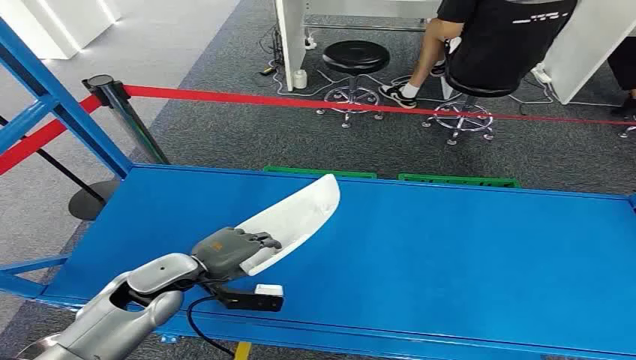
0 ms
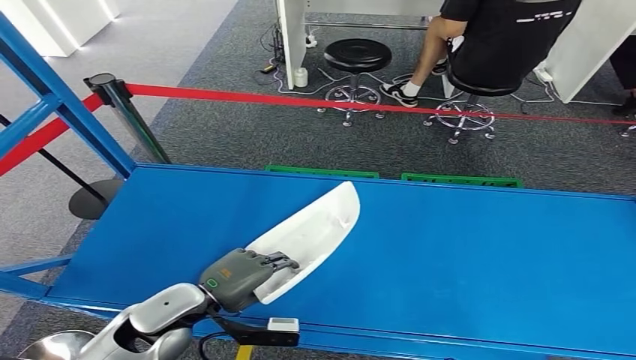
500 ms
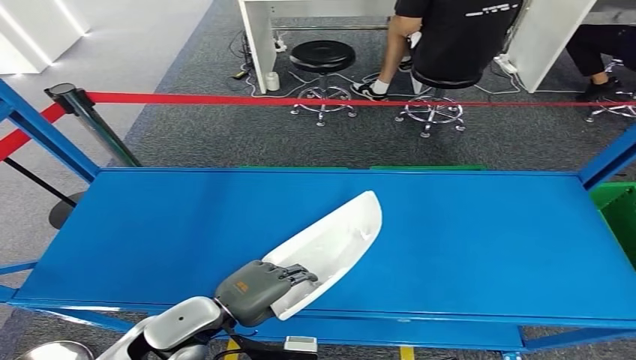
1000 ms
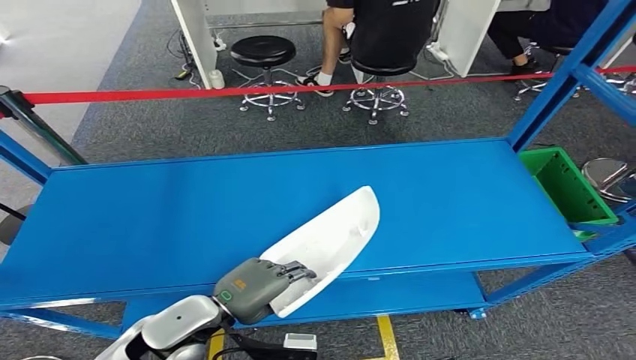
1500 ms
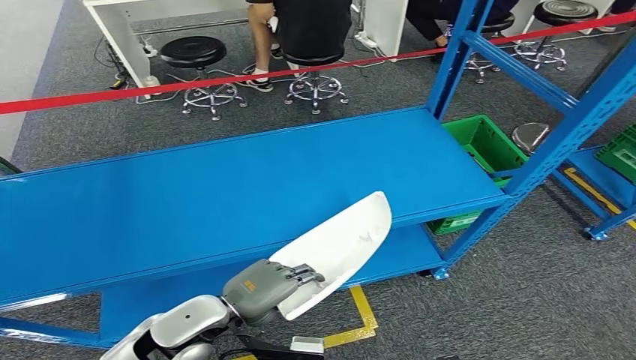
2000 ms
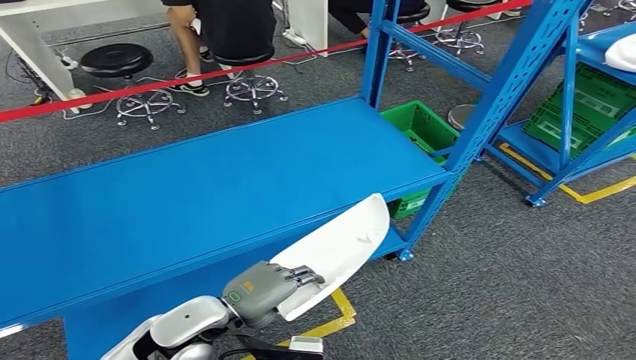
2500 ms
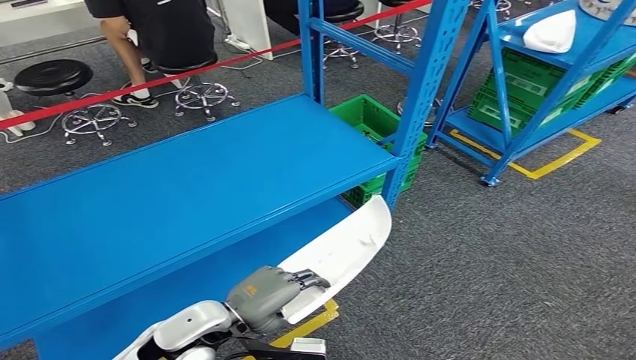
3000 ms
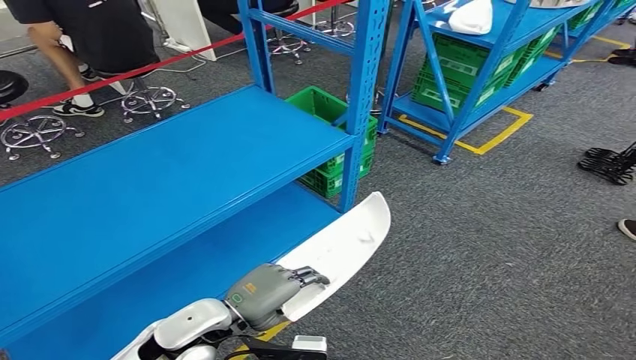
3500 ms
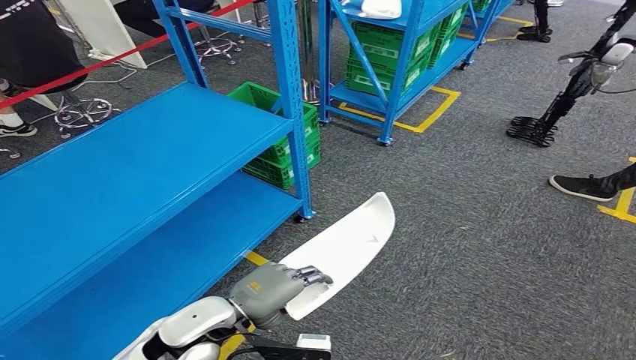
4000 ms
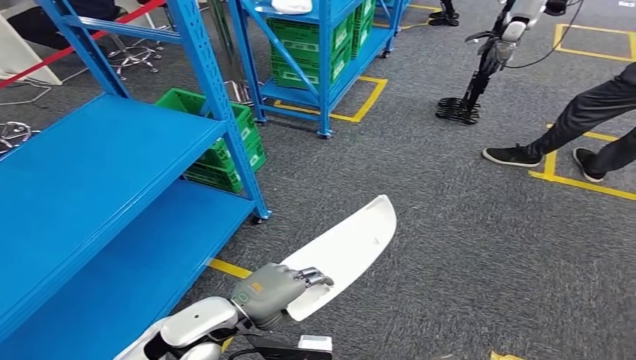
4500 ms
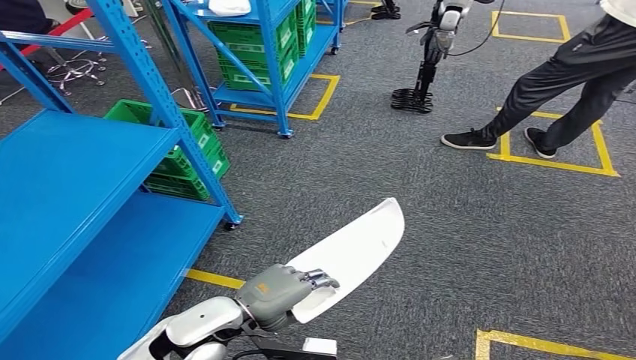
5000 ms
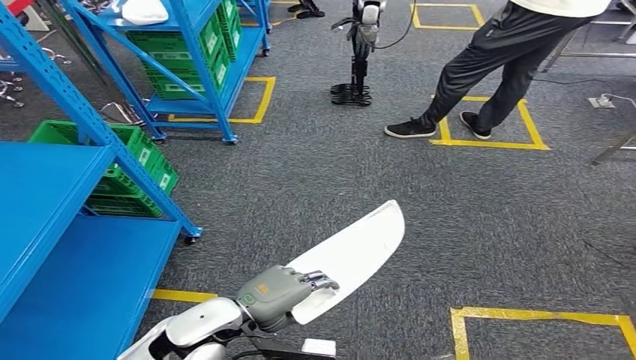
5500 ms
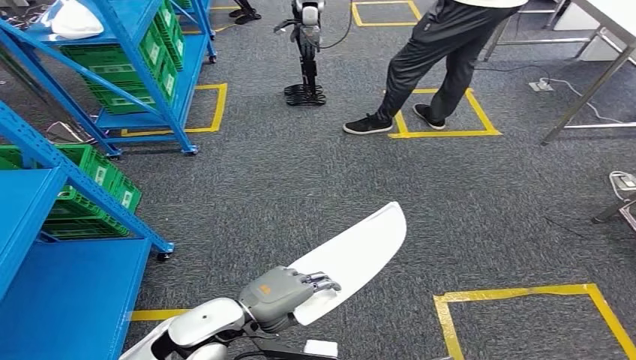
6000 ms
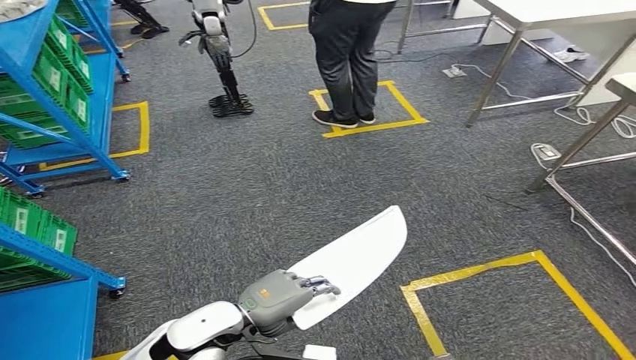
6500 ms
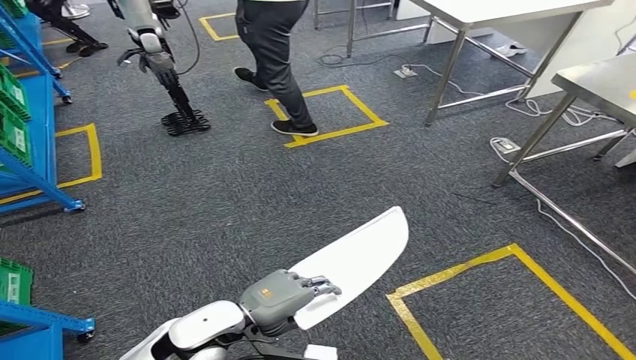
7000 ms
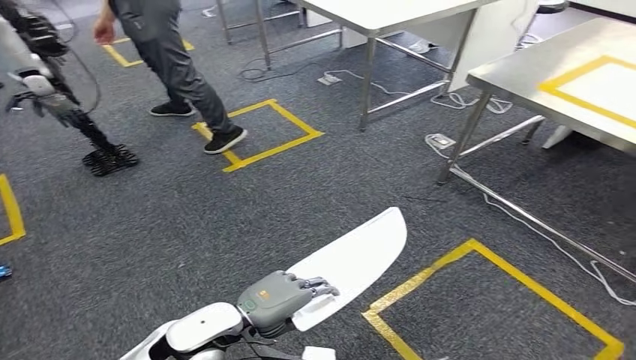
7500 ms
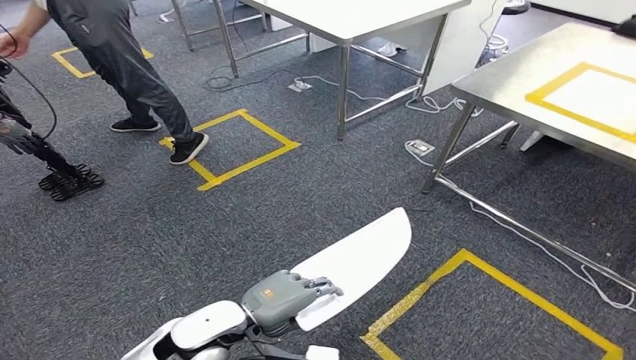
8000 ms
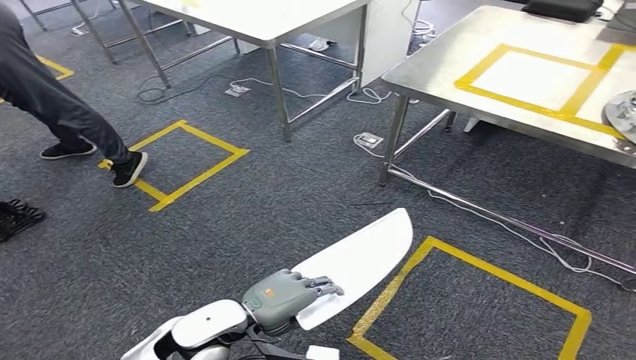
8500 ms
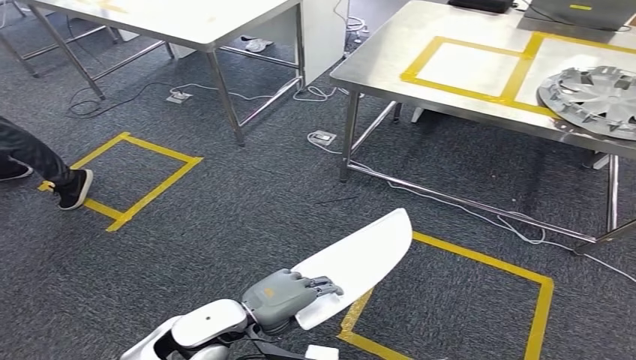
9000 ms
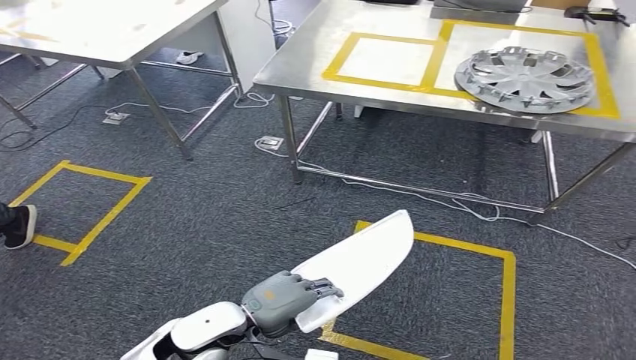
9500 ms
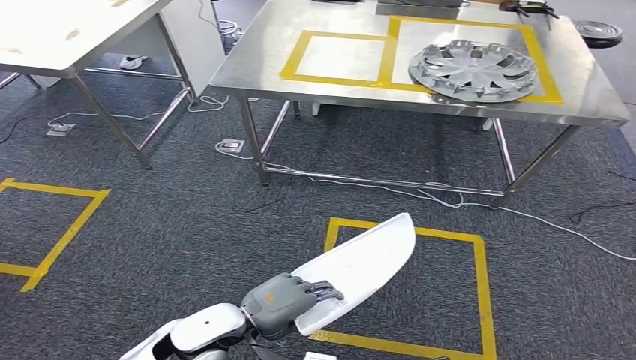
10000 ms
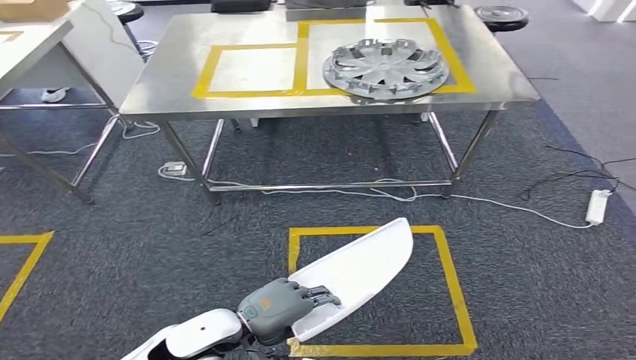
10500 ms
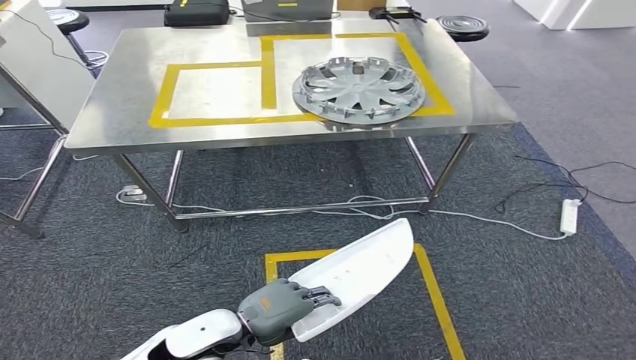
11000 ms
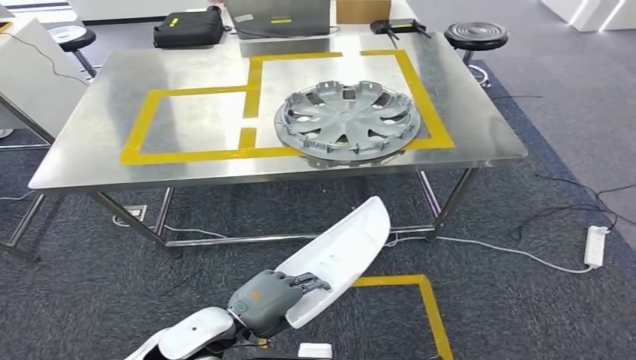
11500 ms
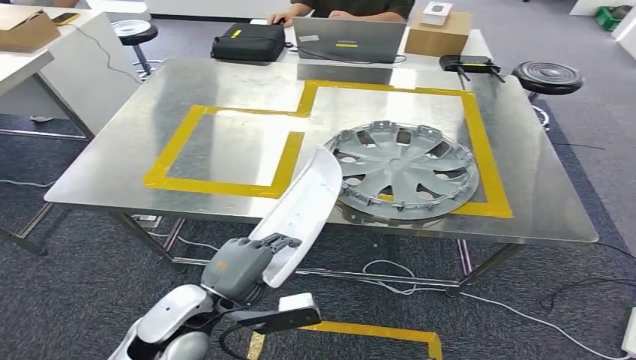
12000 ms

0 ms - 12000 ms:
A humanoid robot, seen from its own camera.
Step, 0 ms - 2000 ms: Pick up the small parts from the shelf.
Step, 2500 ms - 12000 ms: Move the small parts to the workbench.

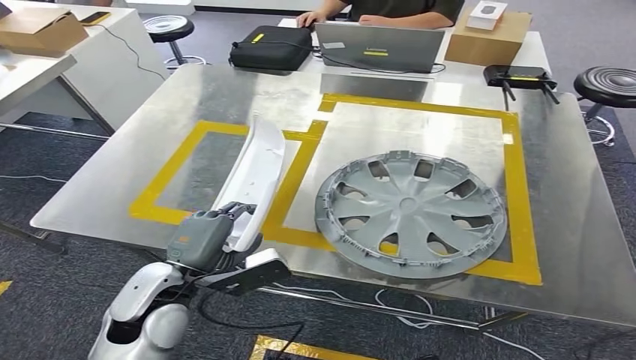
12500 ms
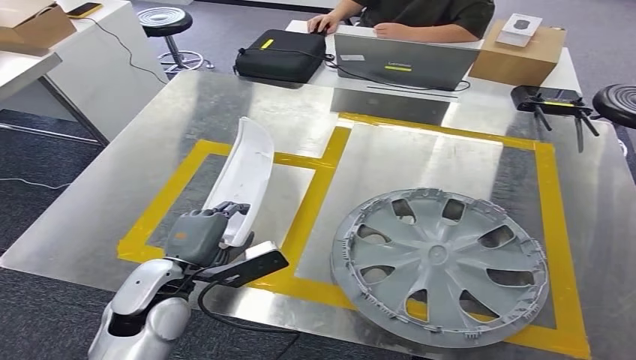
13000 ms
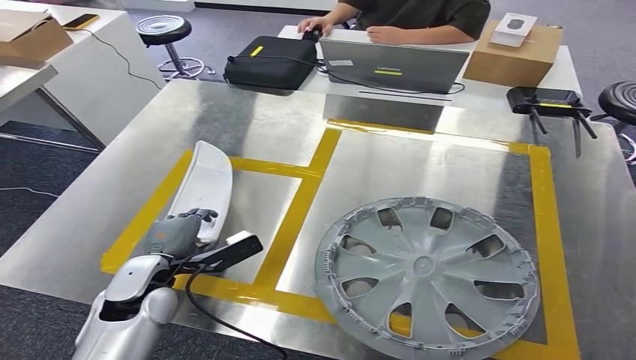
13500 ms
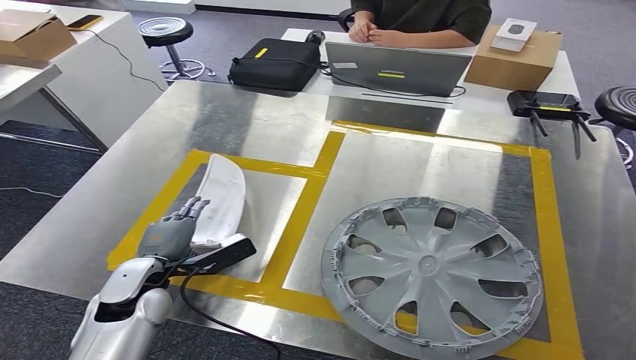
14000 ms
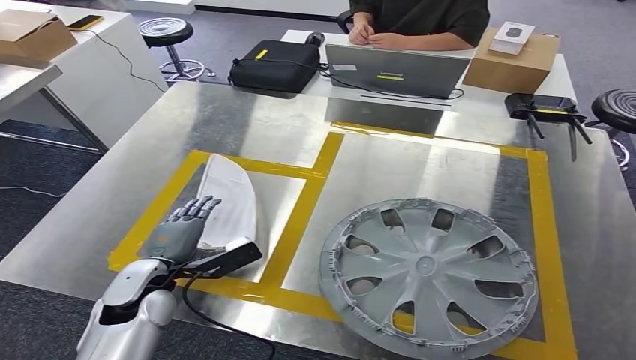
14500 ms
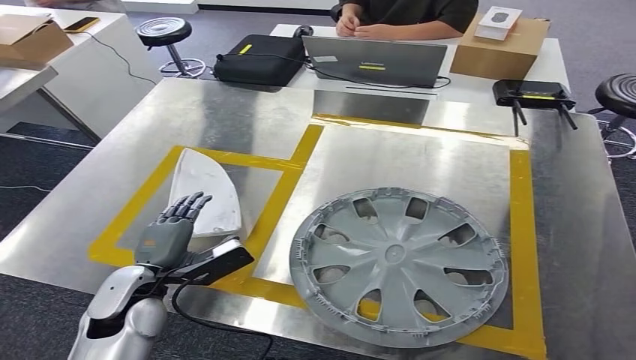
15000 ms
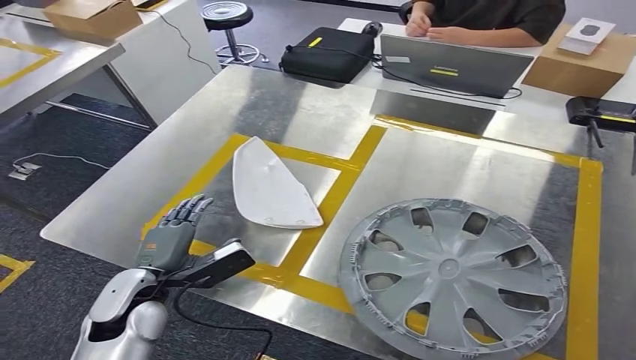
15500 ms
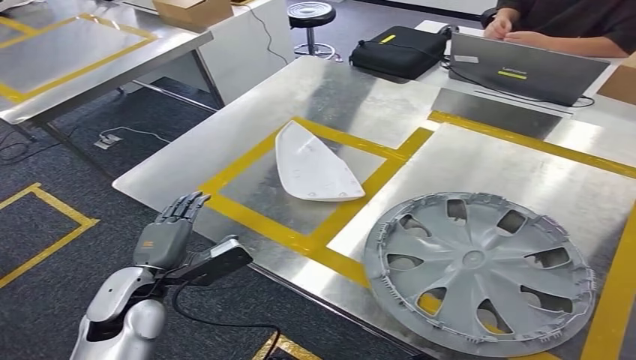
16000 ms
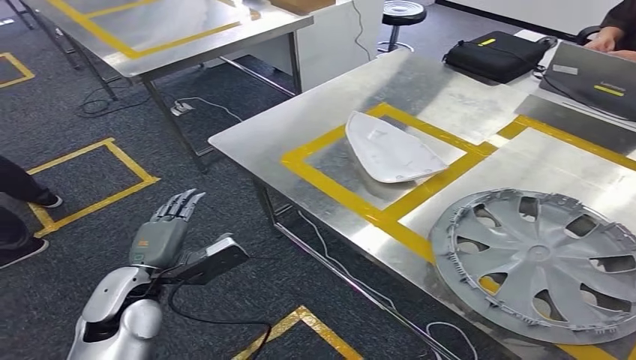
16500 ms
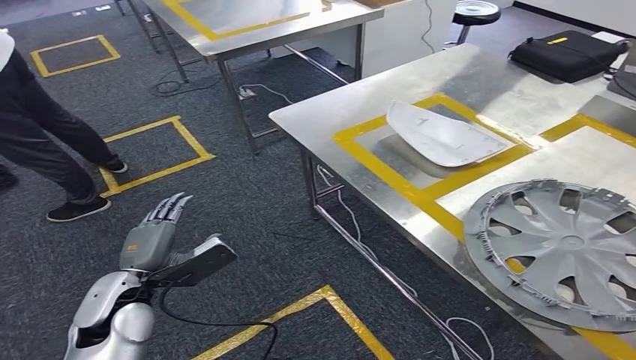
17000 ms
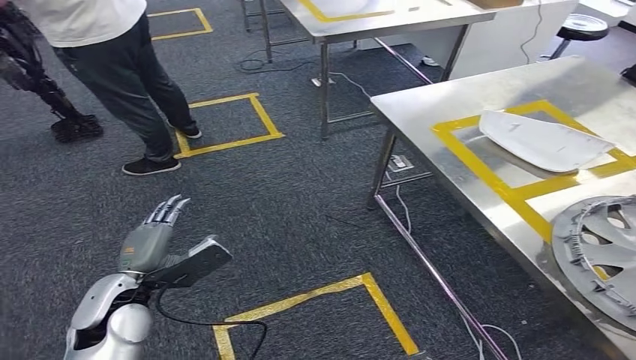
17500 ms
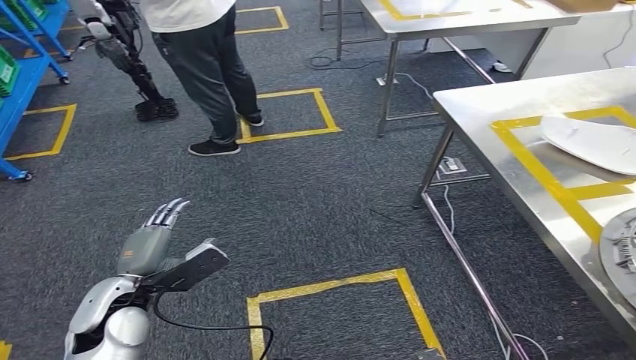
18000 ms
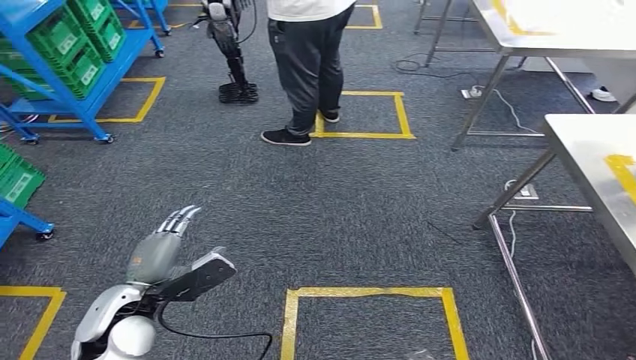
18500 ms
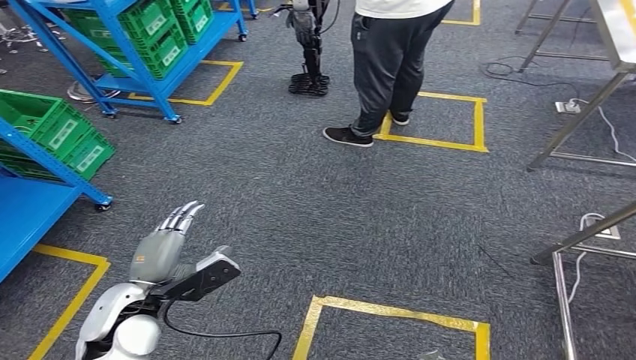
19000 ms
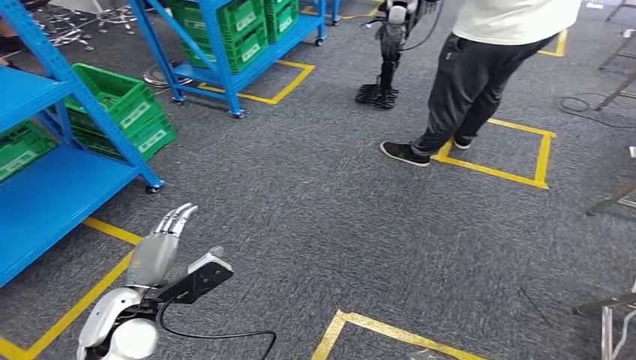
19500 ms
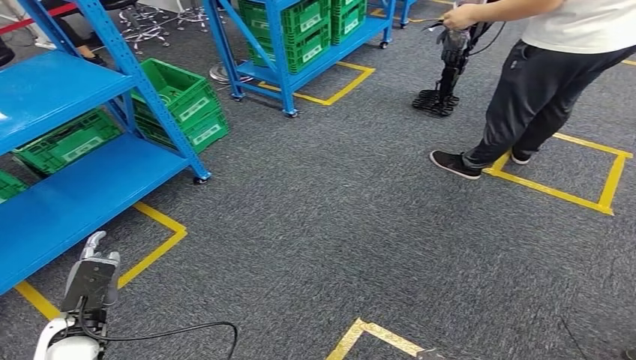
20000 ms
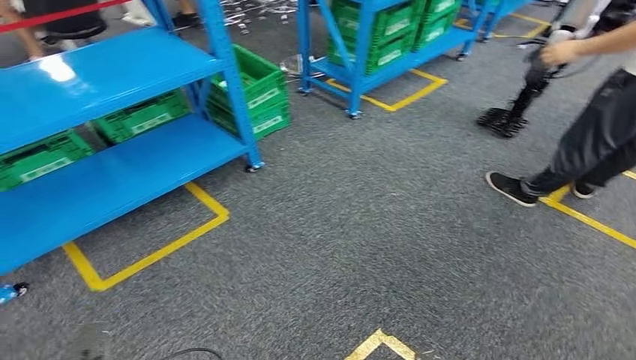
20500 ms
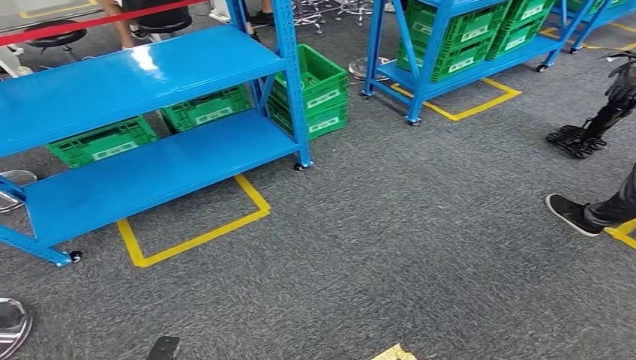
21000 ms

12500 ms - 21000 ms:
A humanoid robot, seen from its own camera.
Step, 12500 ms - 16000 ms: Insert the small parts into the corresponding holes on the workbench.
